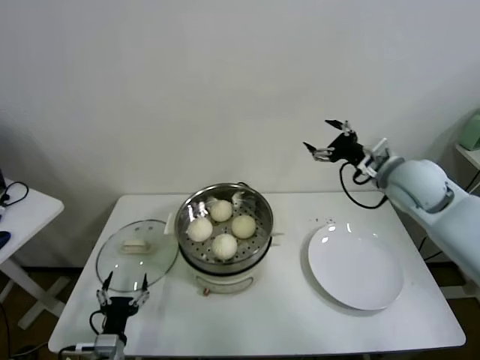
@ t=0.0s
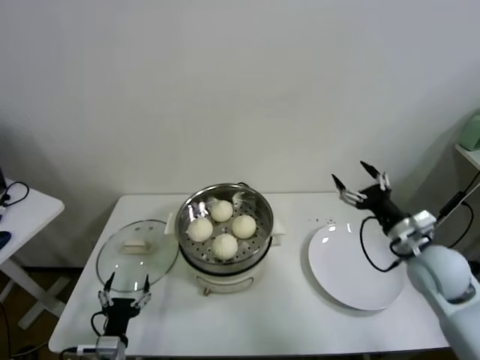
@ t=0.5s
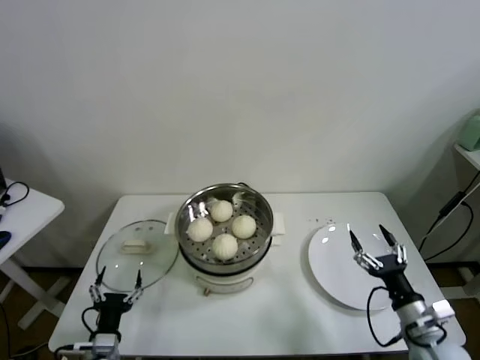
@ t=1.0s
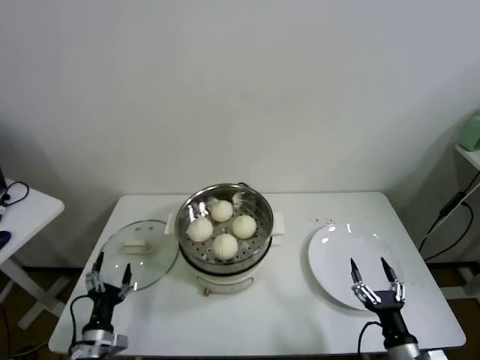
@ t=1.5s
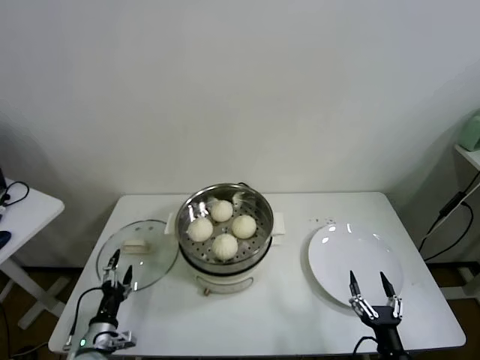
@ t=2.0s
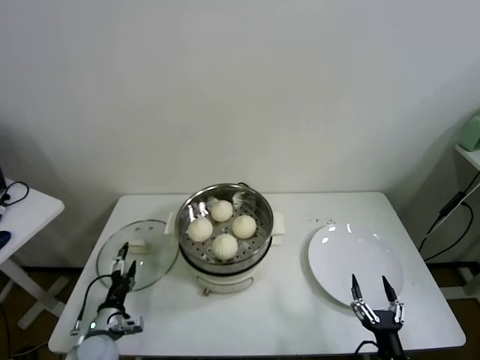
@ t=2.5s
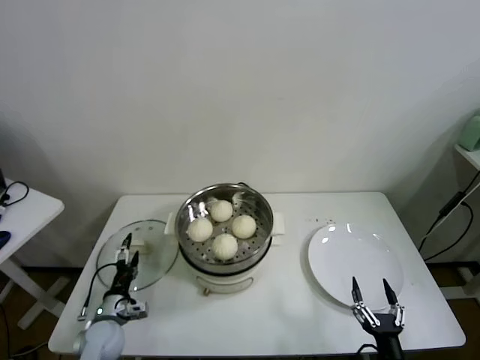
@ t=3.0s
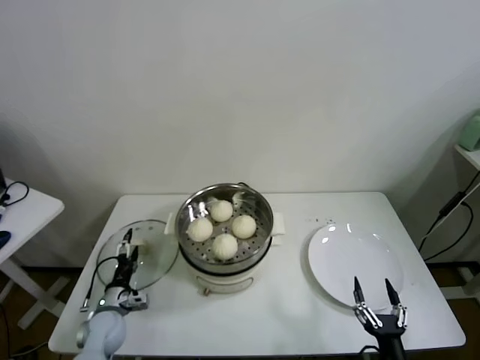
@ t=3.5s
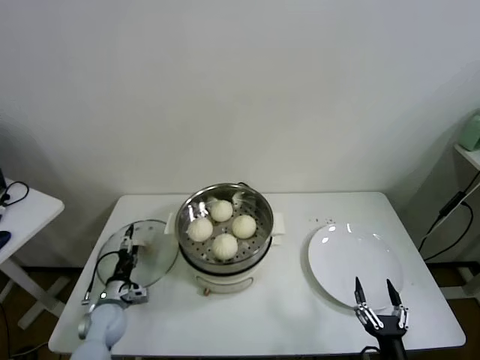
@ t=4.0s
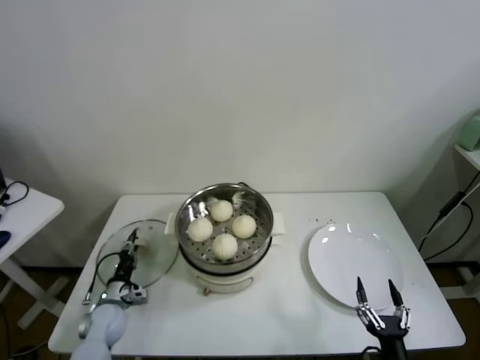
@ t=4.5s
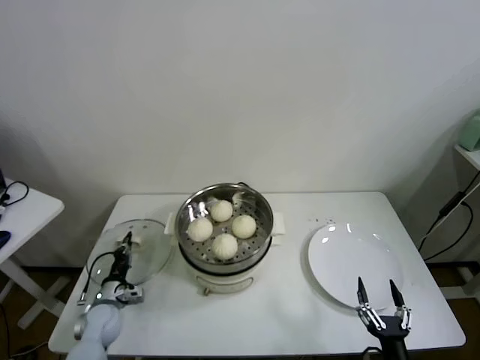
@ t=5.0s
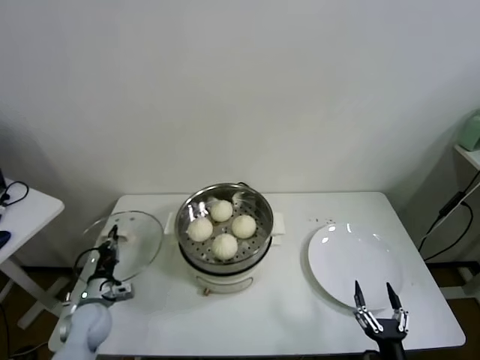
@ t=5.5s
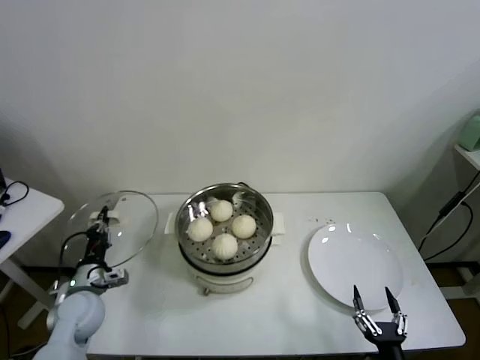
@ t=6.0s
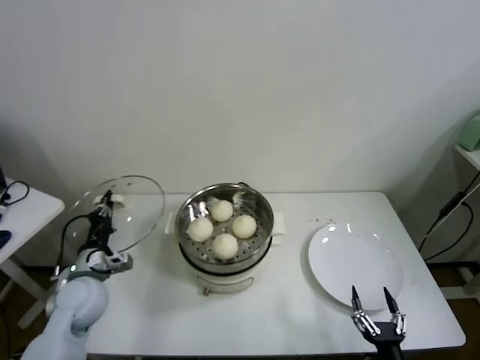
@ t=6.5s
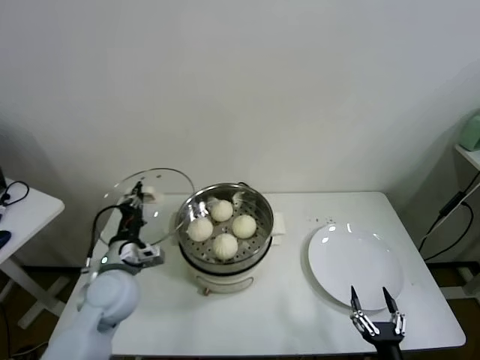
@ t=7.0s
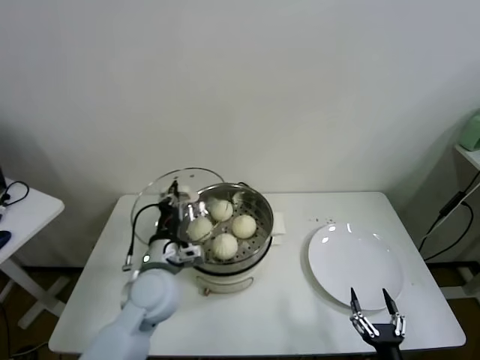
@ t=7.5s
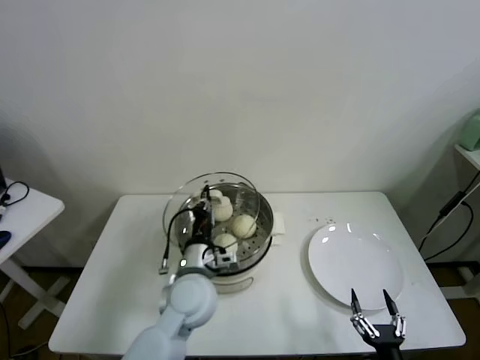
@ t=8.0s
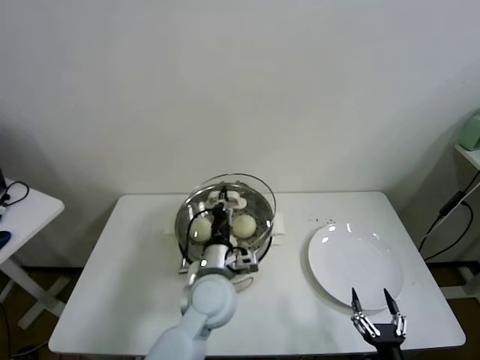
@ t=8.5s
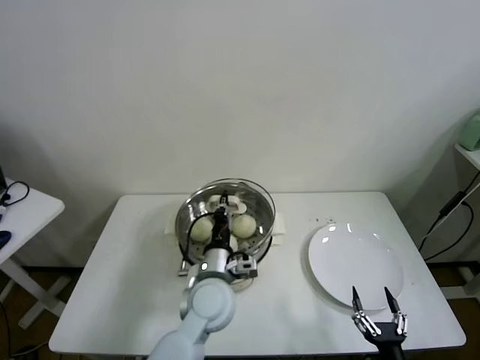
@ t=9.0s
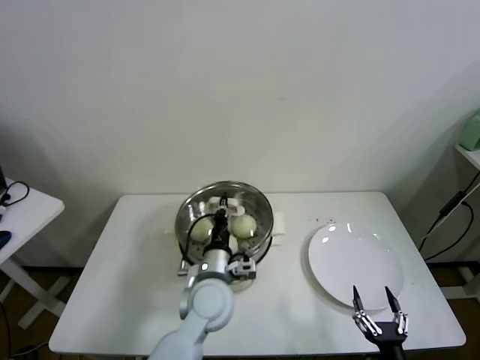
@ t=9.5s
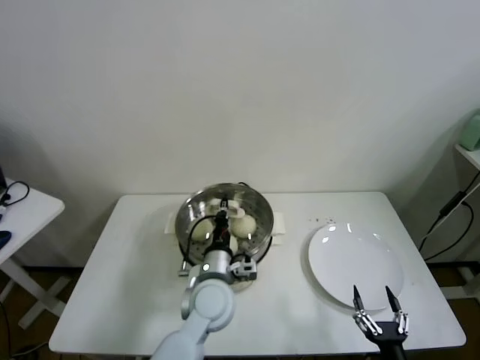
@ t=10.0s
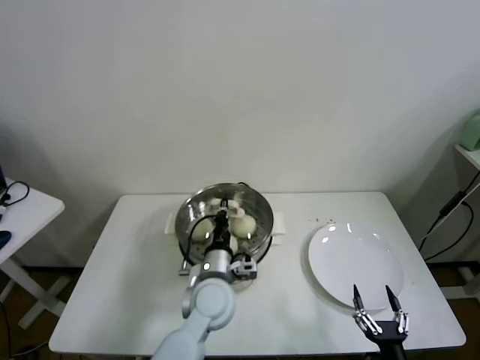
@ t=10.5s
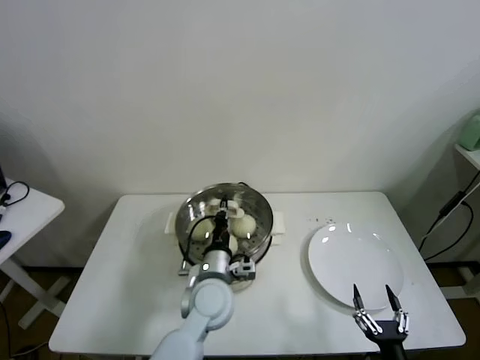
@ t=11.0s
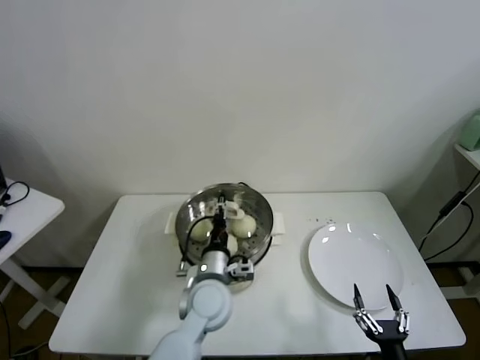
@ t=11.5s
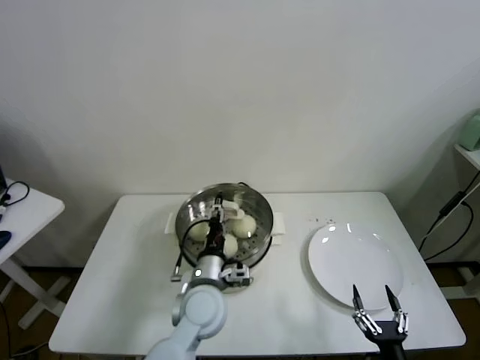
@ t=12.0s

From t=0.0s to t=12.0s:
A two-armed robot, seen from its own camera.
Task of the whole recording: take steamed baozi put them in steamer.
Step, from t=0.0s to t=4.5s: Grasp the pot lid with left gripper.
From t=0.0s to t=2.0s: The left gripper shifts about 5 cm to the left. The right gripper heads backward and downward, covering roughly 50 cm.
From t=2.0s to t=4.0s: The left gripper moves forward, roughly 10 cm.
From t=4.0s to t=6.0s: The left gripper is displaced upward by roughly 10 cm, and closes up.
From t=6.0s to t=8.0s: The left gripper shifts about 25 cm to the right.
From t=8.0s to t=10.0s: The left gripper shifts by about 5 cm.
From t=10.0s to t=12.0s: The left gripper opens up.

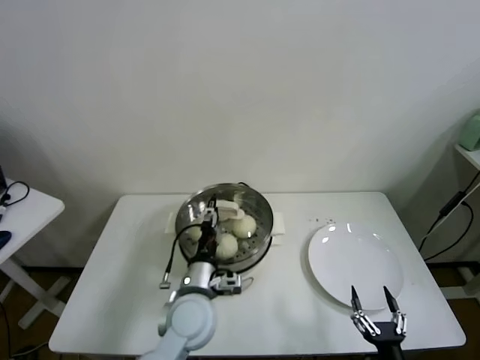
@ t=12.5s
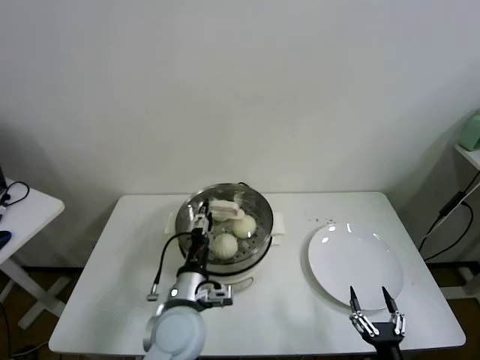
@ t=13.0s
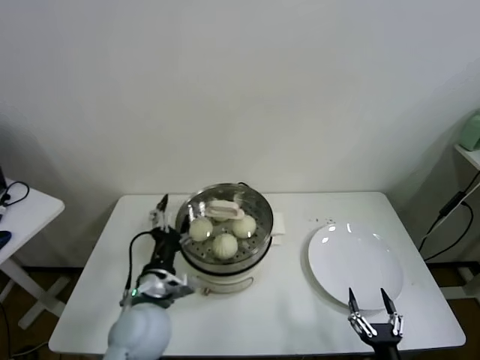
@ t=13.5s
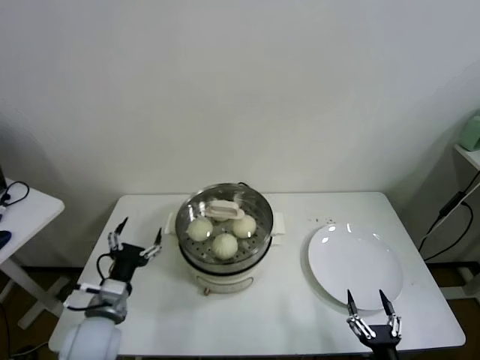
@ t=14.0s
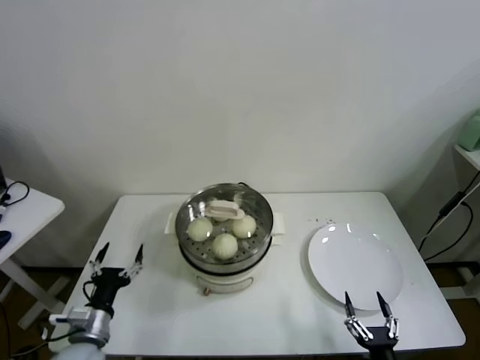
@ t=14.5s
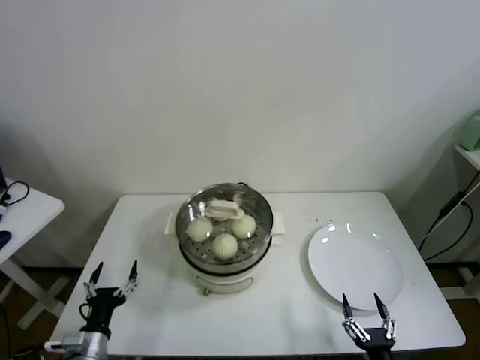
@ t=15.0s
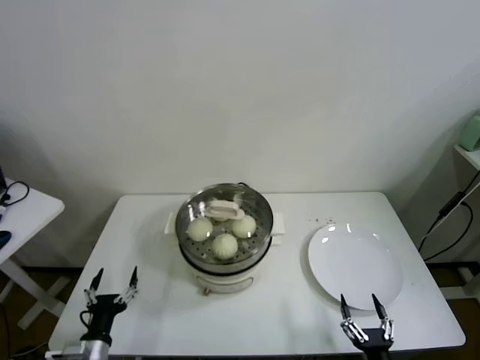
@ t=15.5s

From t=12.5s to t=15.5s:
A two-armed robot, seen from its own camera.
Task of the whole recording: take steamed baozi put them in steamer.
From t=12.5s to t=14.0s: The left gripper goes some 15 cm to the left, and opens up.
From t=14.0s to t=15.5s: The left gripper travels downward, backward and to the left by some 15 cm.
